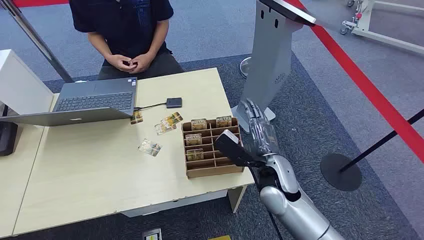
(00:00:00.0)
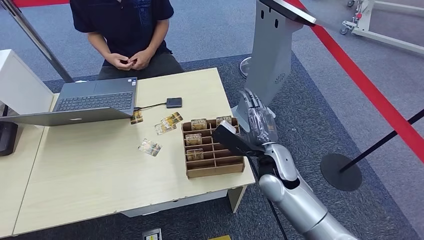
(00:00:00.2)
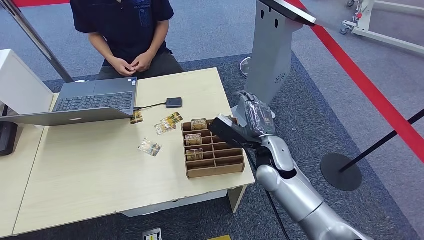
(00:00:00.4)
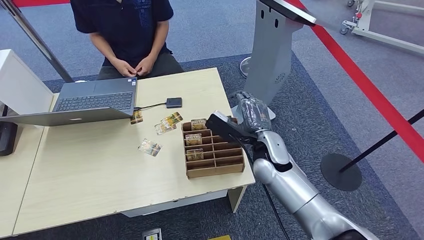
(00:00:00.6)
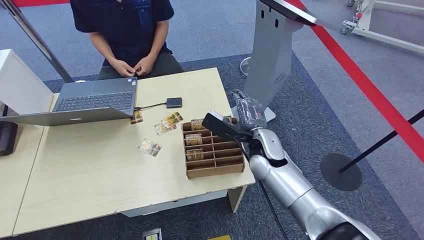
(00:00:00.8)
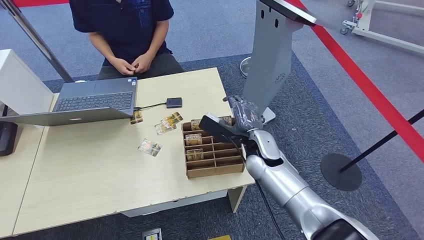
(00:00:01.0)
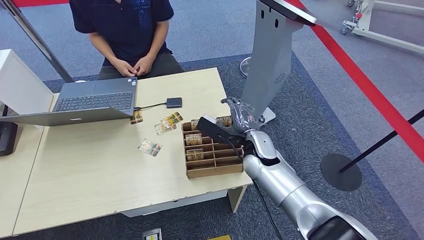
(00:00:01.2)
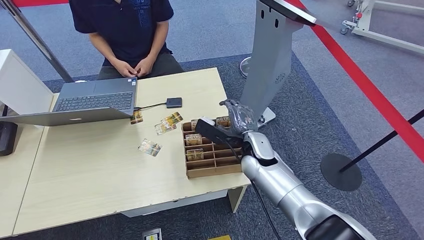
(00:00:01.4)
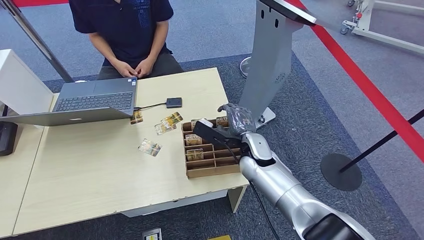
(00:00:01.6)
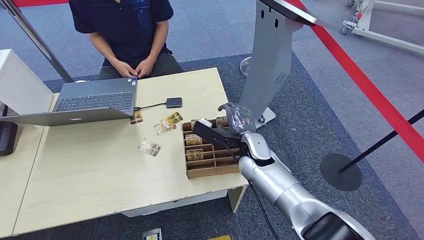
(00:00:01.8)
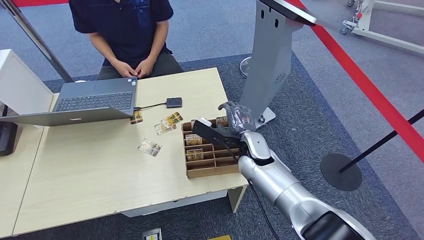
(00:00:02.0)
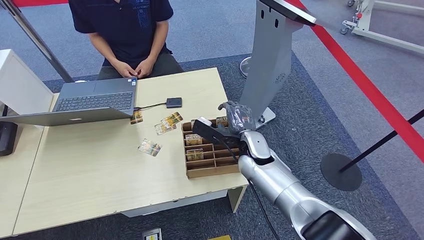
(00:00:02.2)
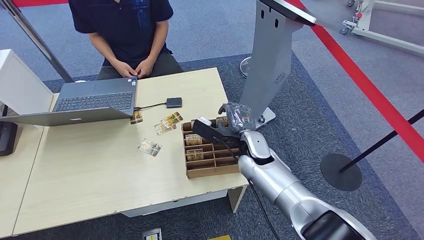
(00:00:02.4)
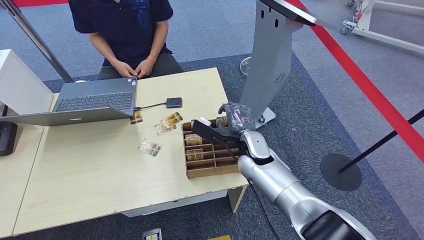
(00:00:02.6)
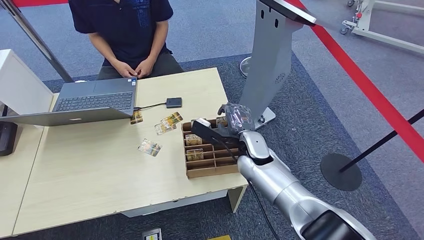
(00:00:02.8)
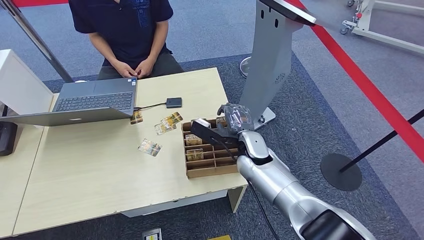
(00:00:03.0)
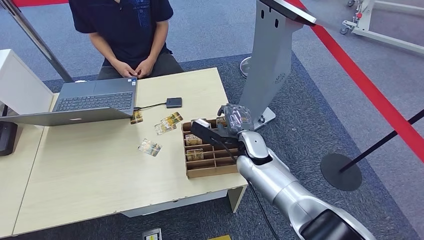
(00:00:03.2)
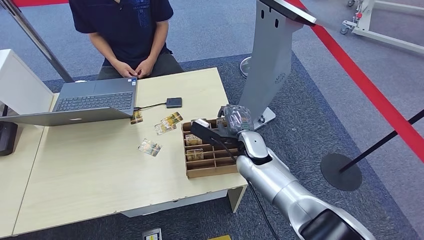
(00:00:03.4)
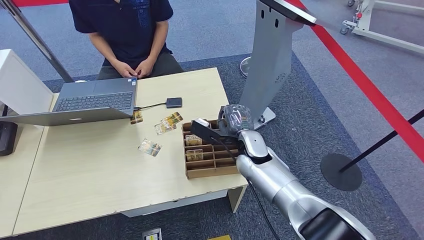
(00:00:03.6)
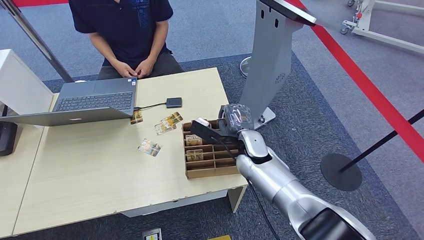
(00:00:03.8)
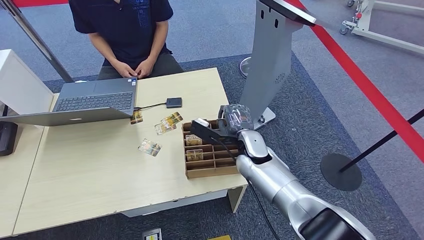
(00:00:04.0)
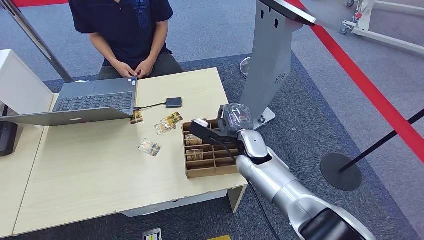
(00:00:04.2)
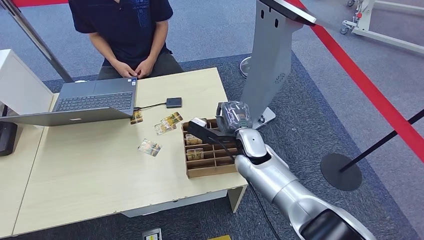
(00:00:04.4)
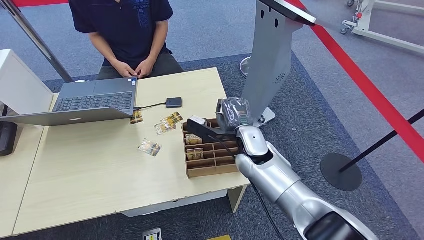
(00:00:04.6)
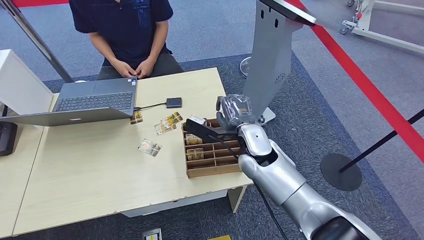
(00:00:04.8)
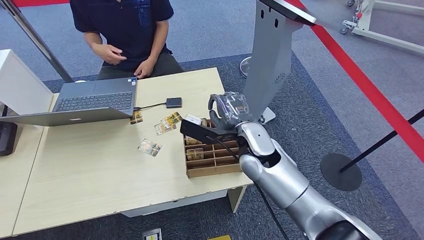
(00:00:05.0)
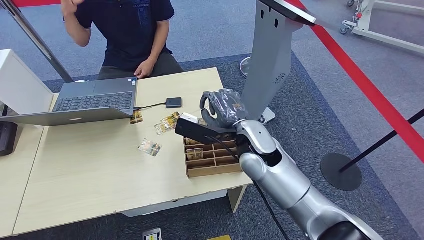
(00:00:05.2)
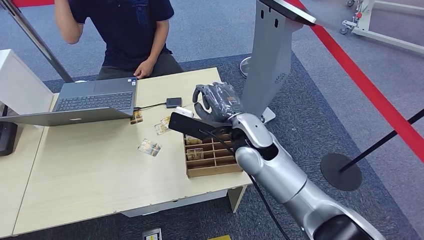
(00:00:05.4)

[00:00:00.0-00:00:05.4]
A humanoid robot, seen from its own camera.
Step, 00:00:00.0 to 00:00:05.4: Pick up the room card from the card holder.
00:00:01.4 to 00:00:02.8: The hands stay close to where they were, moving slightly.
00:00:02.8 to 00:00:04.0: Both hands stay put.
00:00:04.0 to 00:00:05.4: The right hand is displaced upward by approximately 10 cm.
